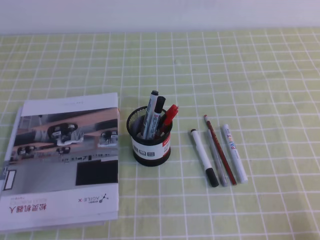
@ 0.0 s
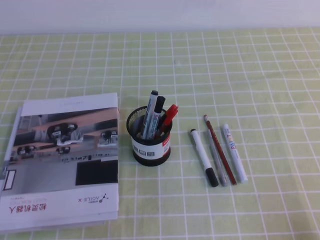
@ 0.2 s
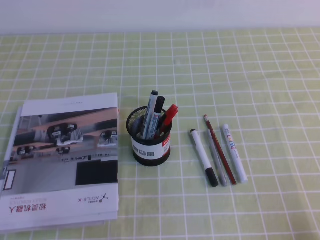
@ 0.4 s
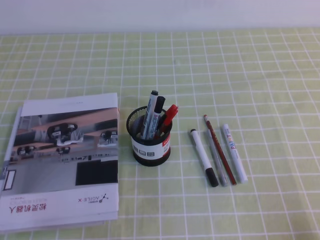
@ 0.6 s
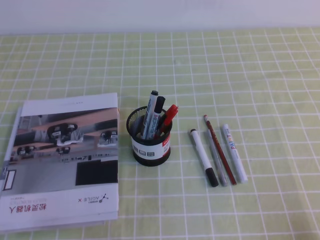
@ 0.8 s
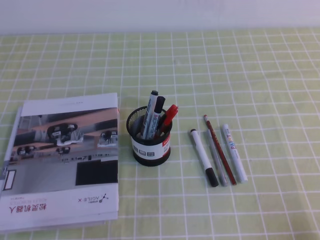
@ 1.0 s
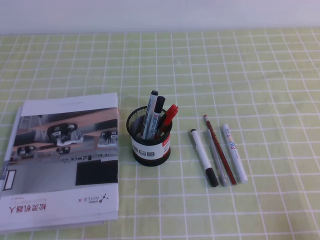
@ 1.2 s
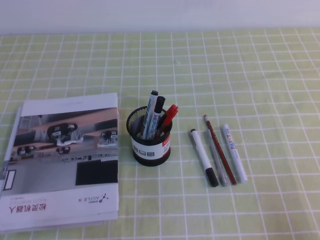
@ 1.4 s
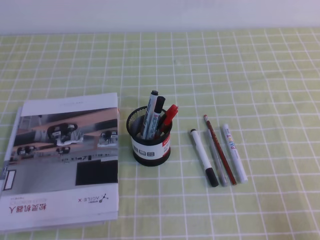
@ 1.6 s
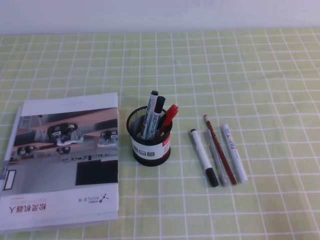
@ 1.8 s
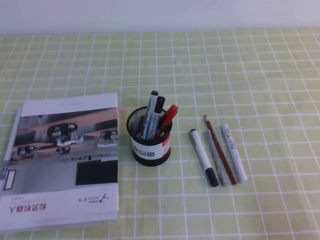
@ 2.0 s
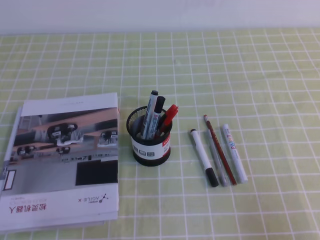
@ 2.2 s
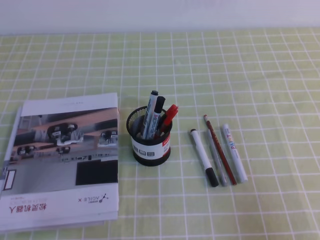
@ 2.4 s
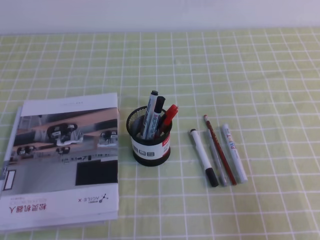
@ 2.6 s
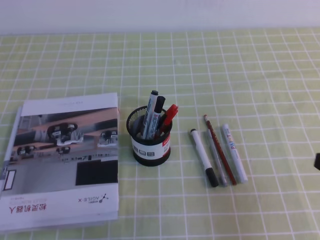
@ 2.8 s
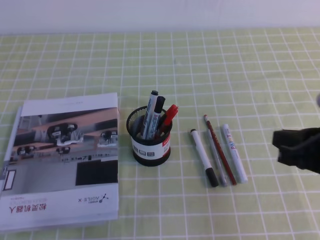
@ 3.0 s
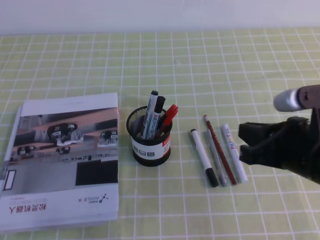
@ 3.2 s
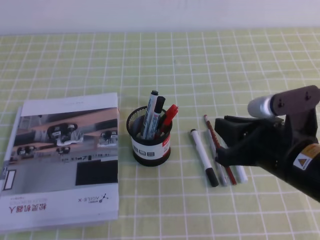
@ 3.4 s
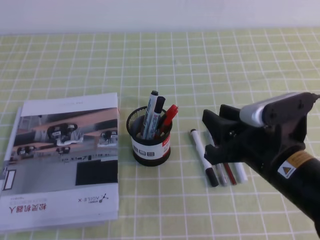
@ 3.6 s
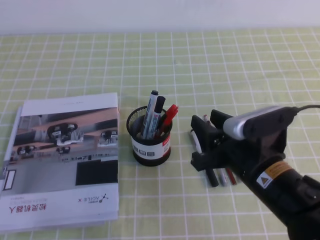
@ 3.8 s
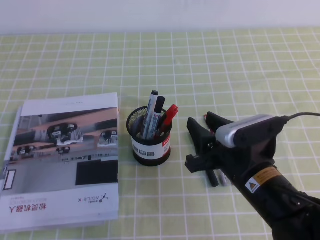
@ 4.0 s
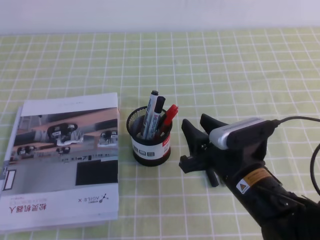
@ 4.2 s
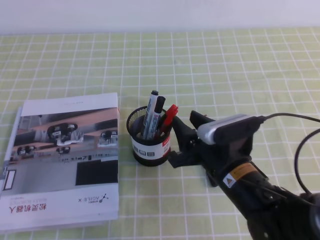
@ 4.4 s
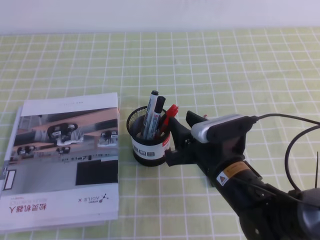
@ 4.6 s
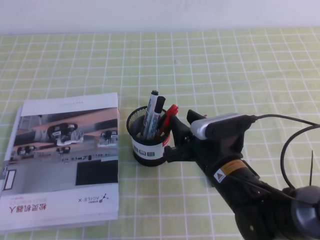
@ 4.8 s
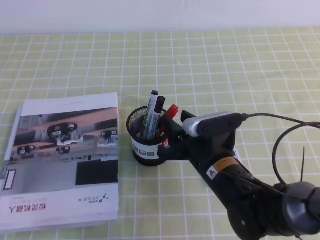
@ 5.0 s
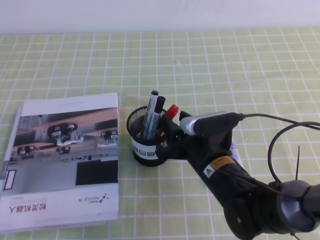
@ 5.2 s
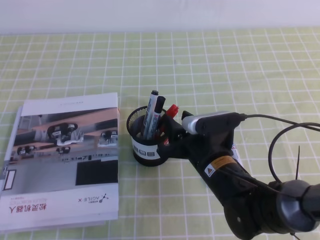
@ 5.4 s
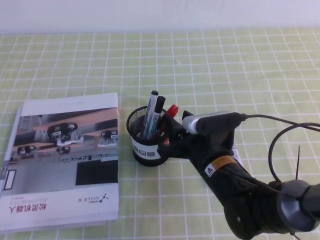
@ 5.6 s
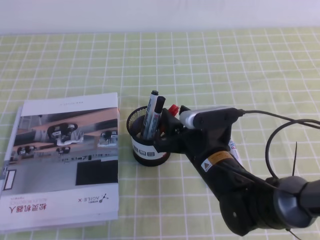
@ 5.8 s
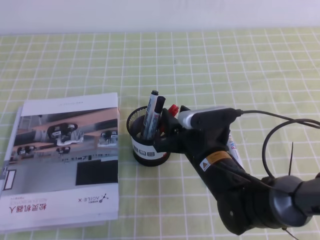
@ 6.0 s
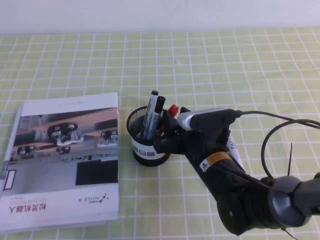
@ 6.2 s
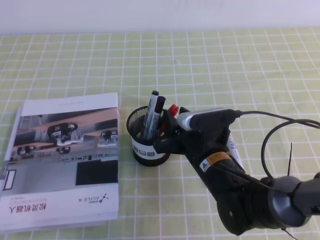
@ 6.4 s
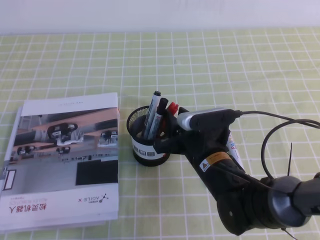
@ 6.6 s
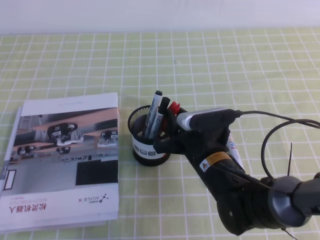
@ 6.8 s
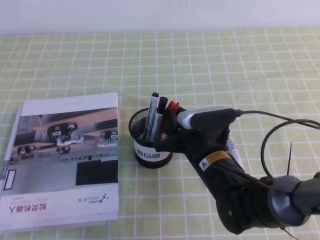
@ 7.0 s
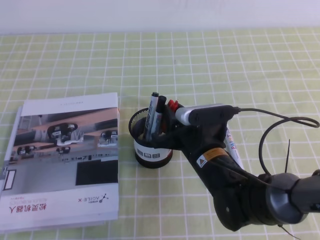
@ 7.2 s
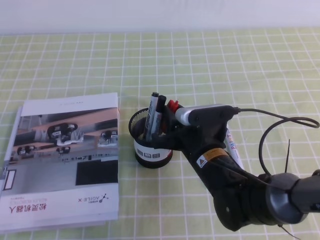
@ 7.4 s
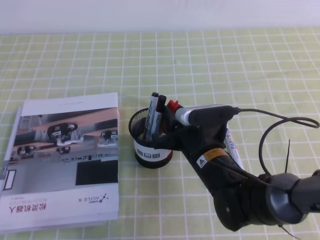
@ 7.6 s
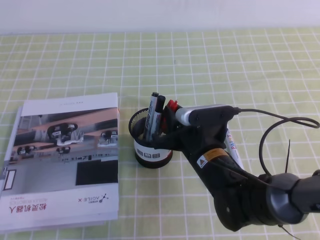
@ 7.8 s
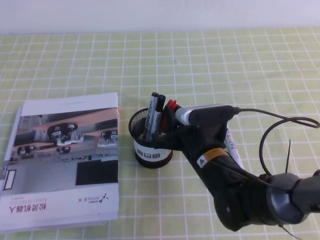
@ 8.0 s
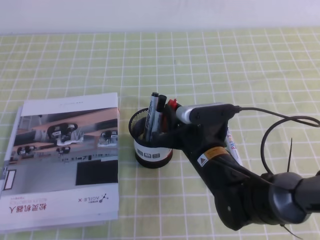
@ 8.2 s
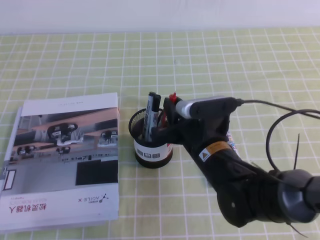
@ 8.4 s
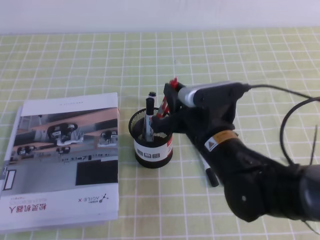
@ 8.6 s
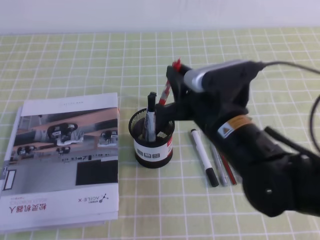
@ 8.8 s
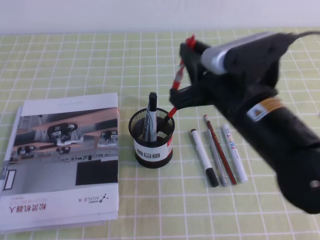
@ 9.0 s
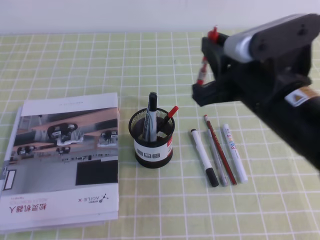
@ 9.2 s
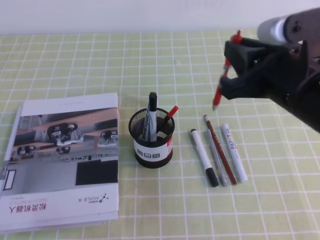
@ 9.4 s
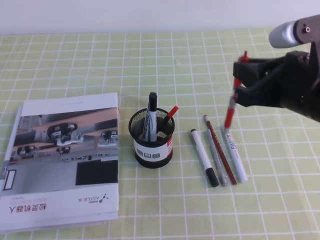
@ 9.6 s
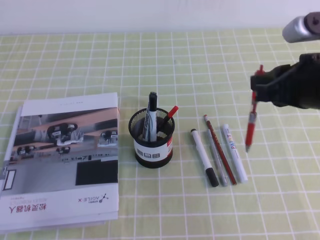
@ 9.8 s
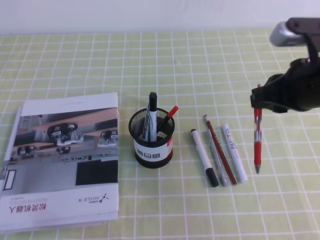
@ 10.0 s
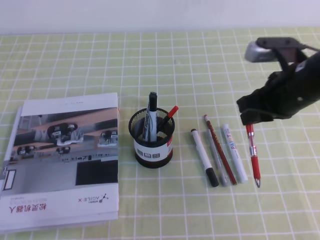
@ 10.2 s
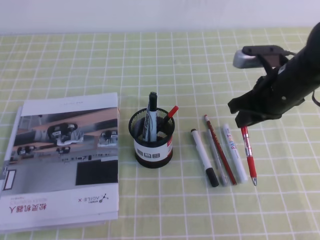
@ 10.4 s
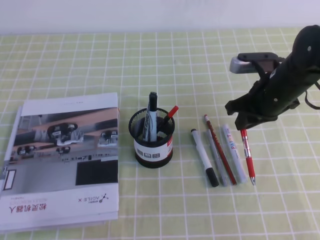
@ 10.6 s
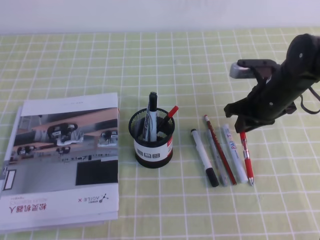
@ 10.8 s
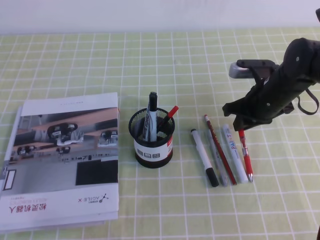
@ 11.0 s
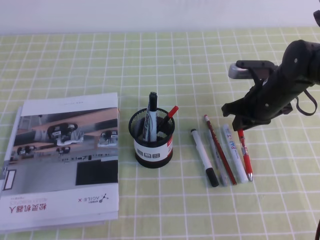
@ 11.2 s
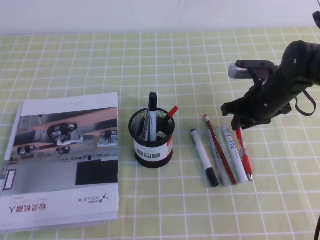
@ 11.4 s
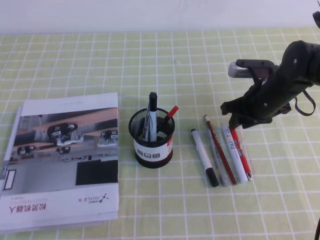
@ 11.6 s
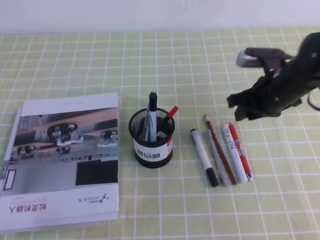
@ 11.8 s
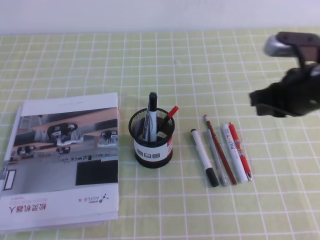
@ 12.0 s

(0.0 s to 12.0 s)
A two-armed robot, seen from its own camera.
1.6 s - 3.0 s: The right gripper goes approximately 15 cm forward, upward and to the left.
3.0 s - 4.4 s: The right gripper moves to the left and downward, about 15 cm, and opens.
4.4 s - 6.0 s: The right gripper ends up roughly 5 cm from where it was.
6.0 s - 7.6 s: The right gripper closes up.
7.6 s - 9.0 s: The right gripper moves upward, about 15 cm.
9.0 s - 10.4 s: The right gripper goes about 15 cm forward, to the right and downward.
10.4 s - 12.0 s: The right gripper reaches roughly 5 cm downward, then returns.

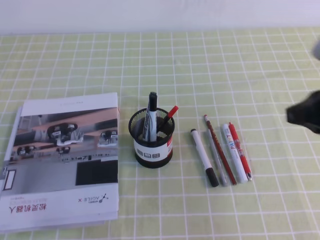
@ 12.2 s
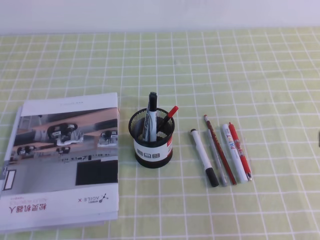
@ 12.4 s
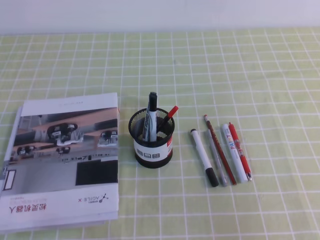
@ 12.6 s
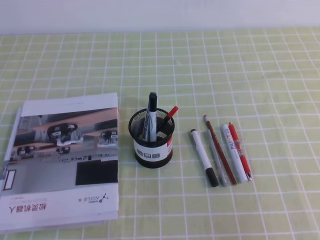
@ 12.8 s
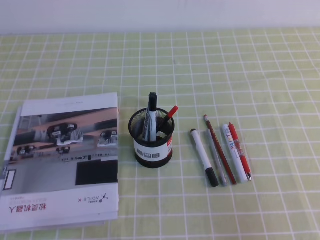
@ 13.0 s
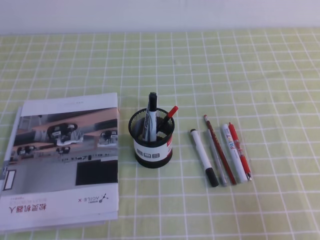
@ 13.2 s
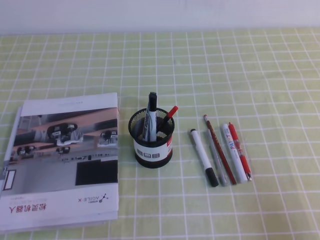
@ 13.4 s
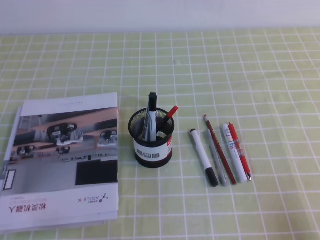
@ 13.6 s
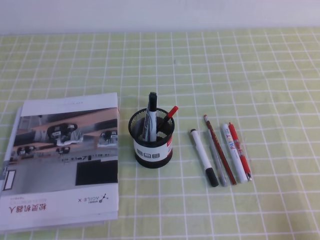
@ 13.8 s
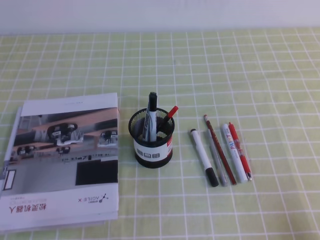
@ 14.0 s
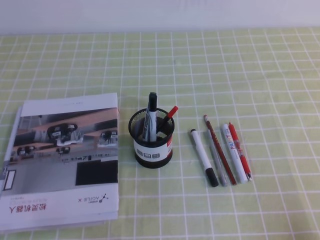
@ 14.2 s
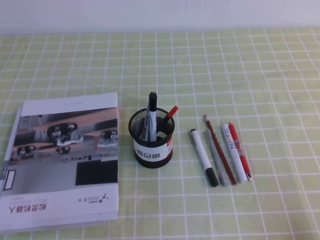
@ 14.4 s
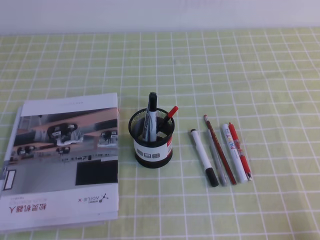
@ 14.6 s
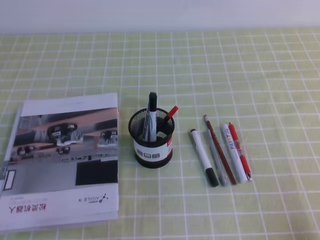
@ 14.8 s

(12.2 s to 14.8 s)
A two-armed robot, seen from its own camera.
Step, 12.2 s - 14.8 s: Pick up the pen from the pen holder.
12.2 s - 13.4 s: The right gripper moves backward, downward and to the right, roughly 20 cm.
